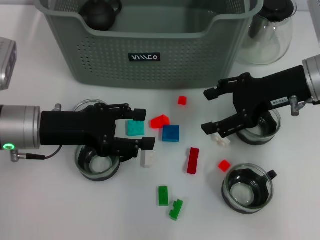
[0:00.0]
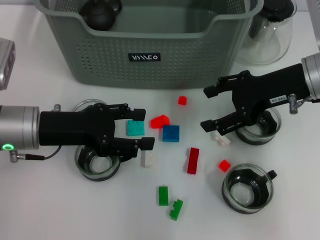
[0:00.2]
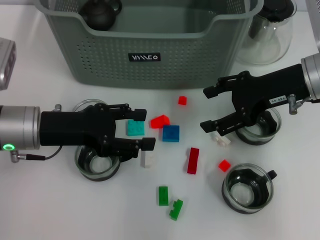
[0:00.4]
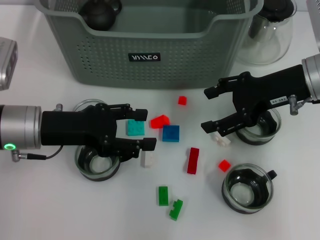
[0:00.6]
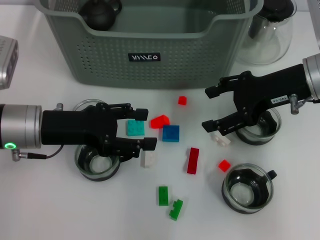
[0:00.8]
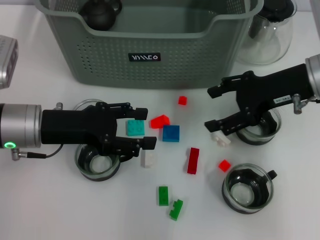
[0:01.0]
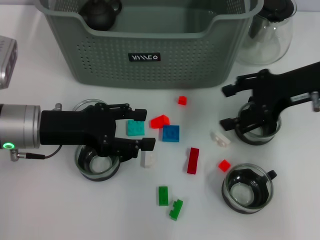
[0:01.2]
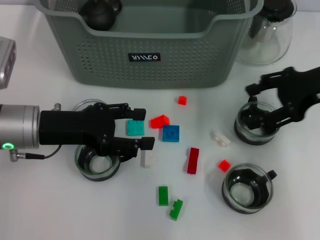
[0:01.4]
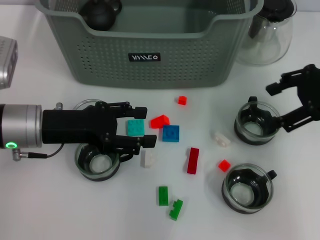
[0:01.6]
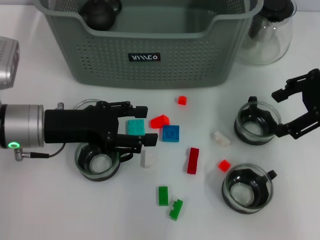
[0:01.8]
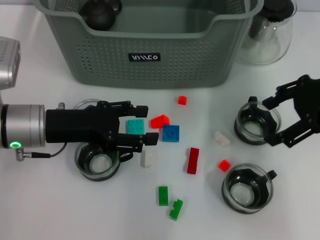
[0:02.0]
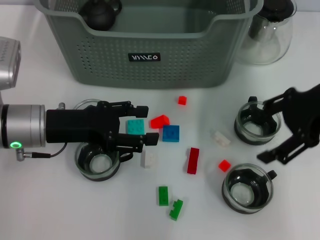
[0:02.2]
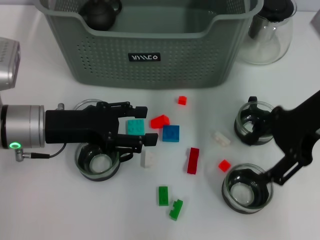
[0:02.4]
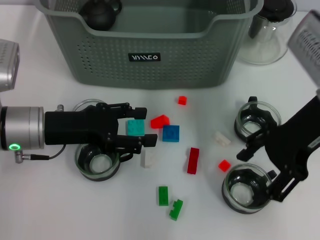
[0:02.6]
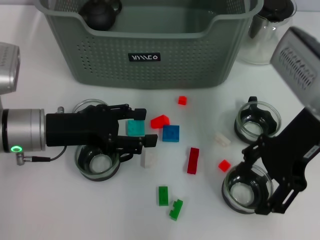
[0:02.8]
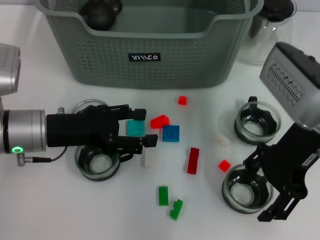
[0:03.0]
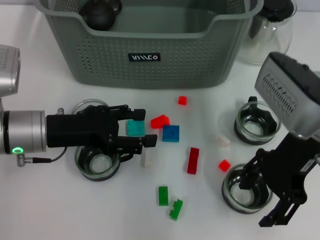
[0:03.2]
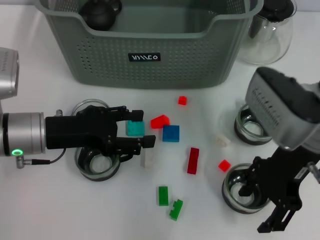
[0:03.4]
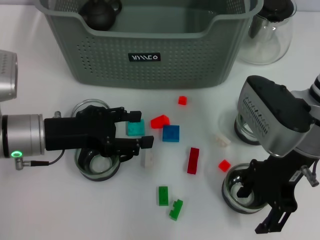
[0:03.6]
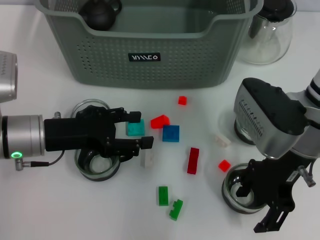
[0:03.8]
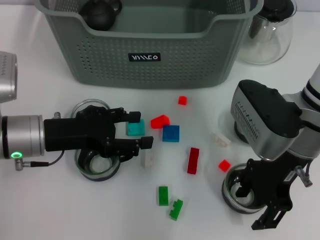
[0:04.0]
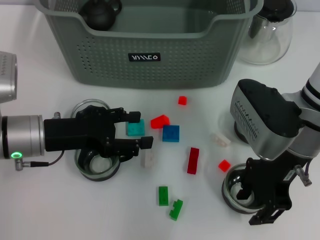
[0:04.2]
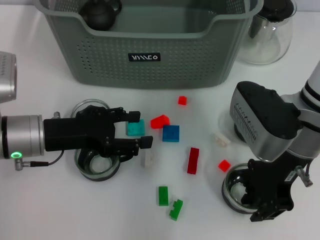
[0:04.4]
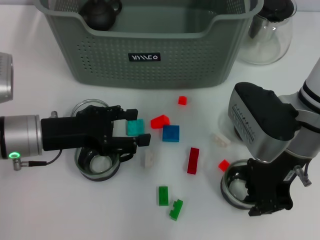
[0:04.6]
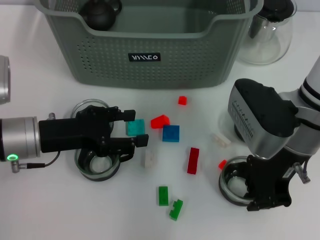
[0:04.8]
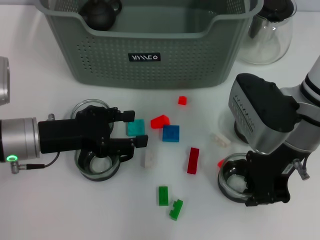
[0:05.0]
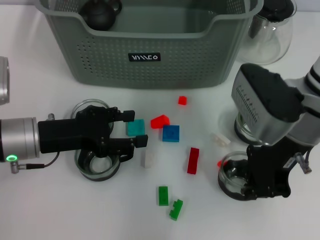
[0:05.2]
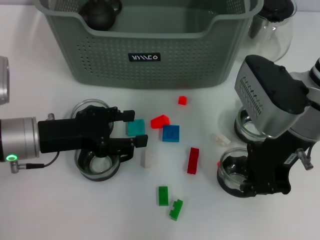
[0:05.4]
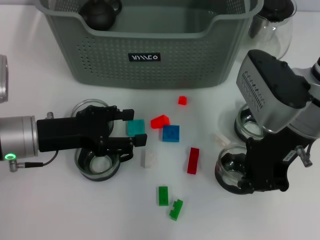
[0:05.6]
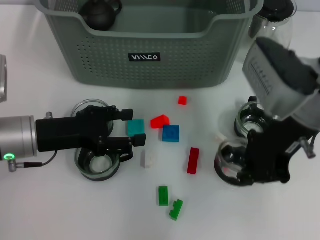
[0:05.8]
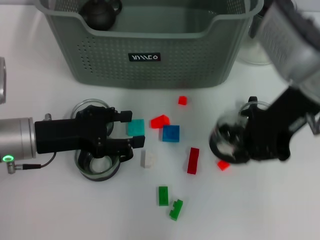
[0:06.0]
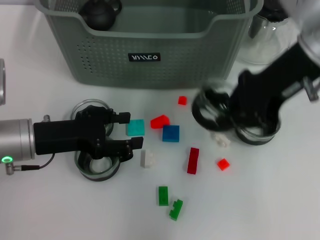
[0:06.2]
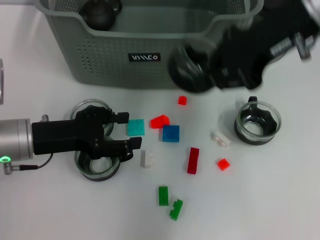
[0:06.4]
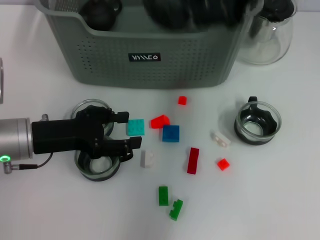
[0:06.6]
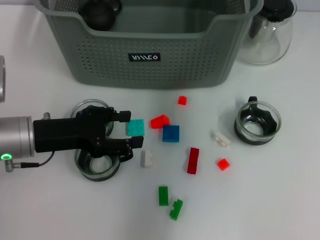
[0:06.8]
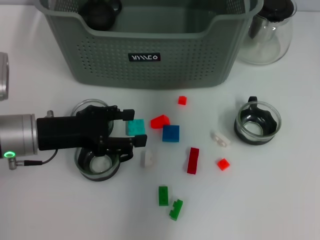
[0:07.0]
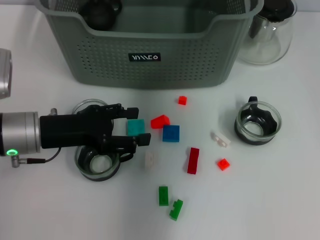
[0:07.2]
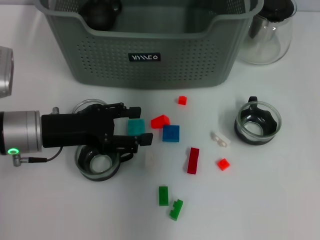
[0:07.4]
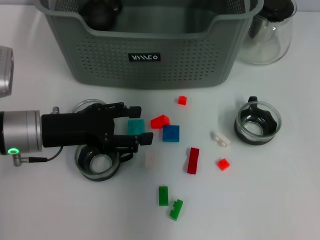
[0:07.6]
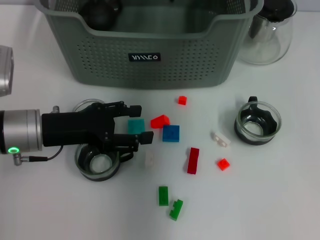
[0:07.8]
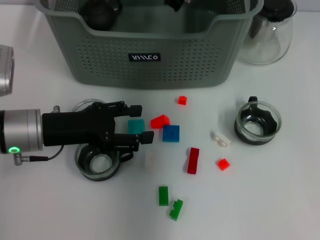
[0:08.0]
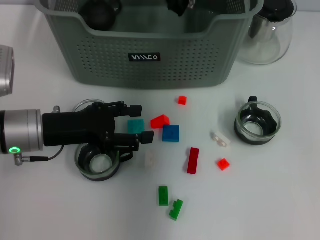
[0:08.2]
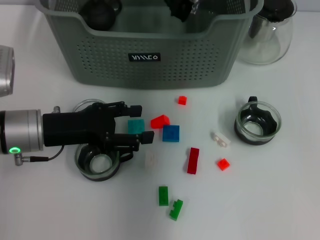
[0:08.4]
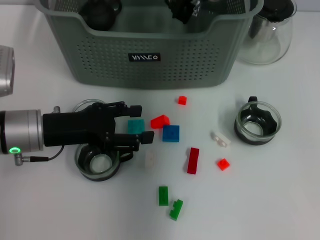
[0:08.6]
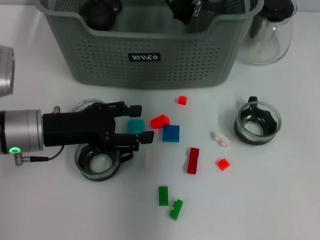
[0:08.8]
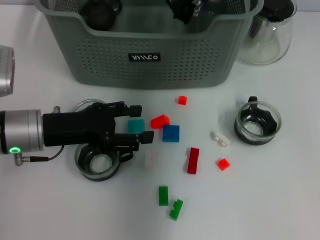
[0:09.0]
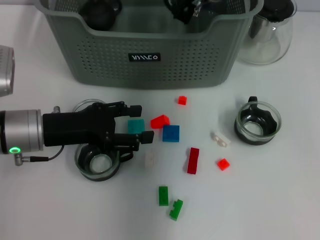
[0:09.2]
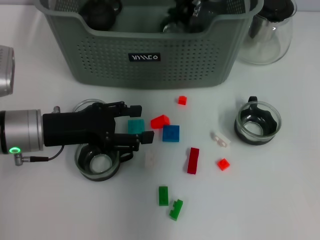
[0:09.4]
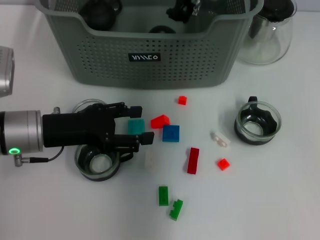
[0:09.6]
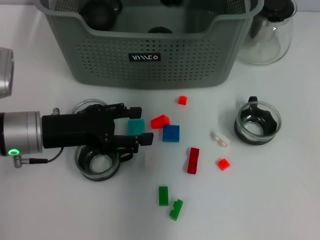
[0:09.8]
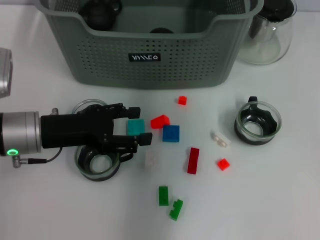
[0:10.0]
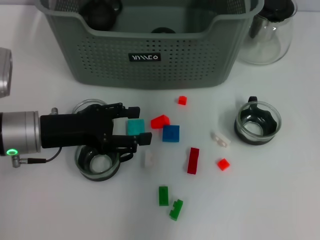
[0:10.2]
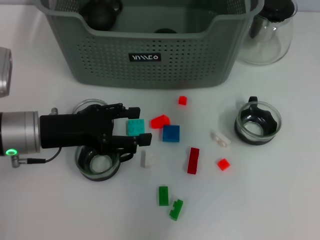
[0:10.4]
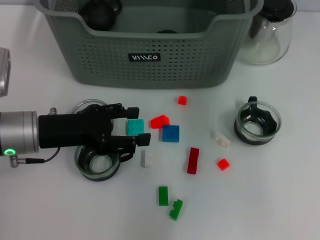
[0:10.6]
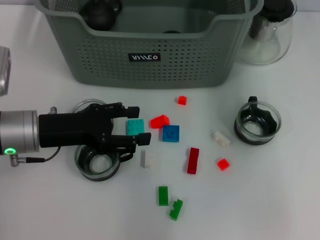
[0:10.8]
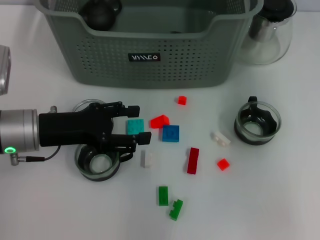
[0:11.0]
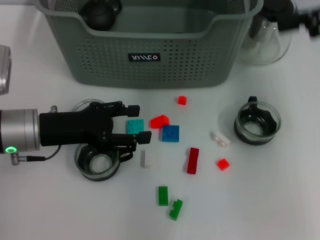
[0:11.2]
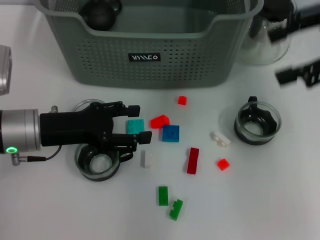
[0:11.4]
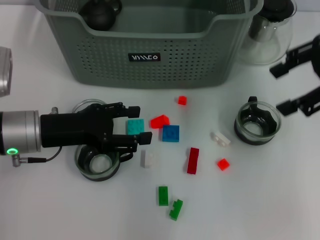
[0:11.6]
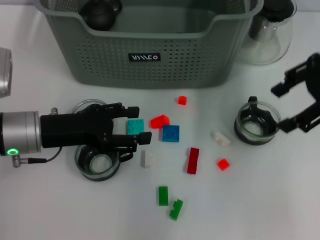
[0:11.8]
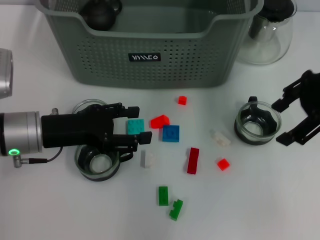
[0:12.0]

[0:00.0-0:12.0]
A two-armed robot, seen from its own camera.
Task of the whole recording: pick up the teacup on the table and place it into the storage bin, pick up the block on the table and place it into the storage bin.
Step, 0:00.0 to 0:04.6: Grasp the cup with right gripper.
Step, 0:05.0 to 0:09.6: Place the cup in the storage box with right gripper.
0:00.0 to 0:01.6: The right gripper moves to the right, approximately 5 cm.
0:01.6 to 0:03.0: The right gripper moves to the left, some 10 cm.
0:03.0 to 0:04.4: The grippers move only a little.
0:04.4 to 0:06.0: The right gripper goes roughly 5 cm upward, and closes its fingers.
0:06.0 to 0:07.6: The right gripper is displaced forward and to the left by approximately 20 cm.
0:07.6 to 0:09.0: The right gripper goes approximately 5 cm downward.
0:09.0 to 0:10.4: The right gripper heads upward, covering some 15 cm, and opens.
0:10.4 to 0:12.0: The right gripper shifts approximately 20 cm to the right, downward and backward.

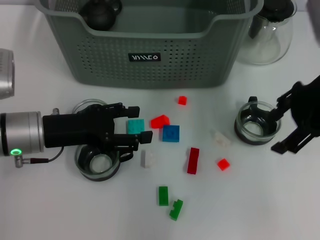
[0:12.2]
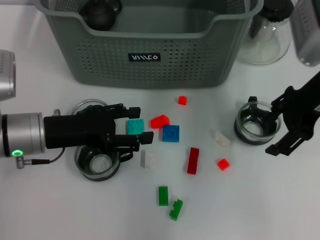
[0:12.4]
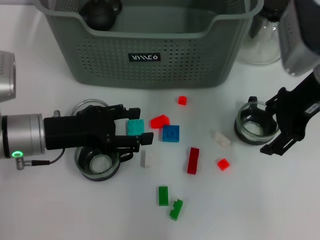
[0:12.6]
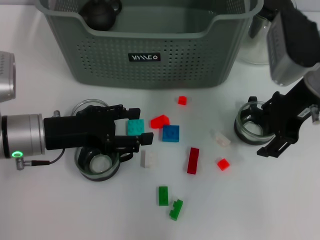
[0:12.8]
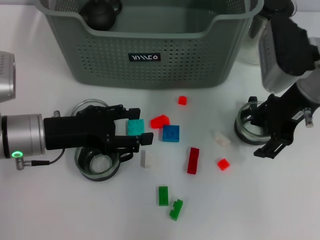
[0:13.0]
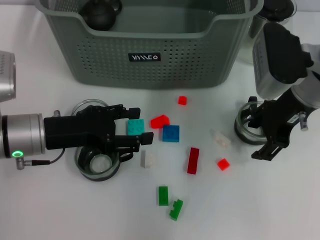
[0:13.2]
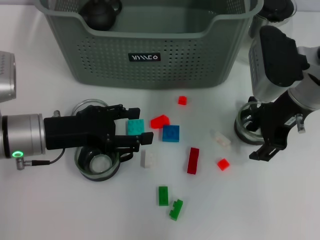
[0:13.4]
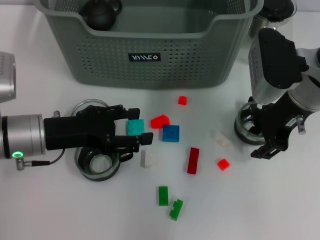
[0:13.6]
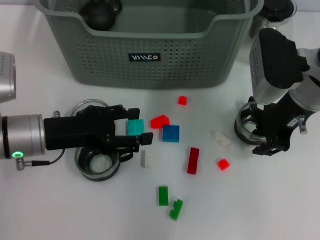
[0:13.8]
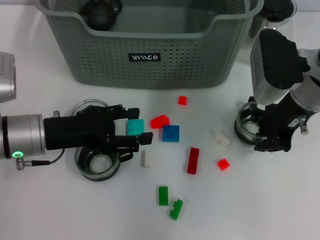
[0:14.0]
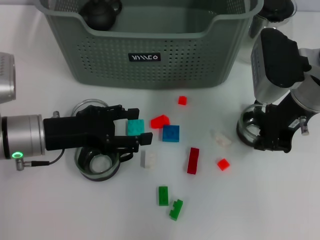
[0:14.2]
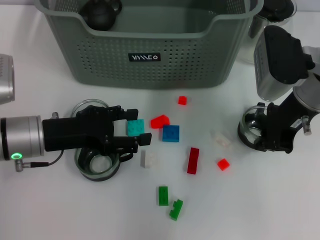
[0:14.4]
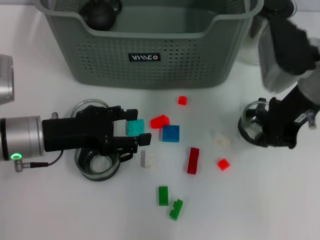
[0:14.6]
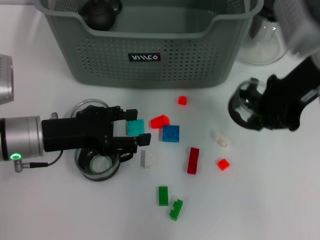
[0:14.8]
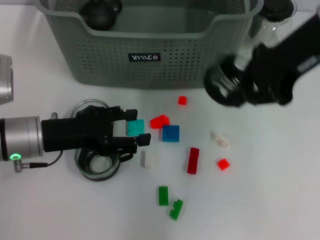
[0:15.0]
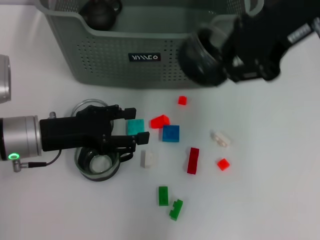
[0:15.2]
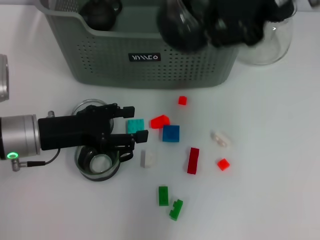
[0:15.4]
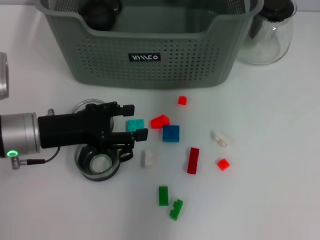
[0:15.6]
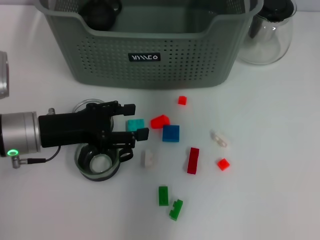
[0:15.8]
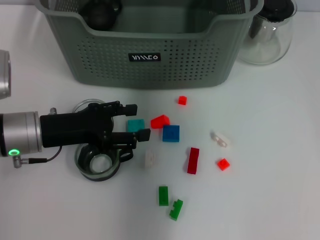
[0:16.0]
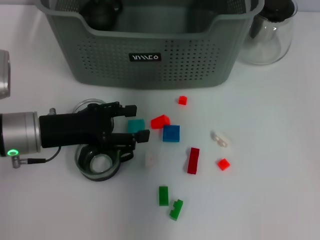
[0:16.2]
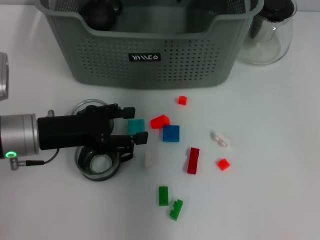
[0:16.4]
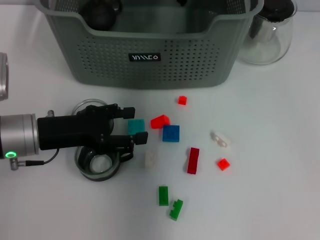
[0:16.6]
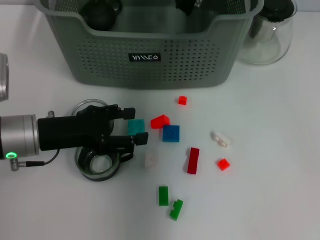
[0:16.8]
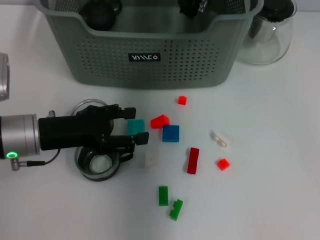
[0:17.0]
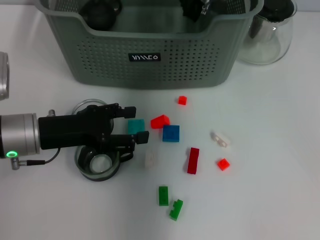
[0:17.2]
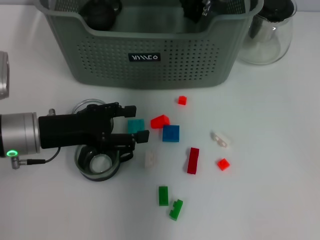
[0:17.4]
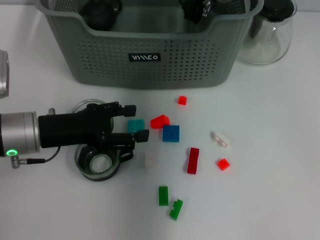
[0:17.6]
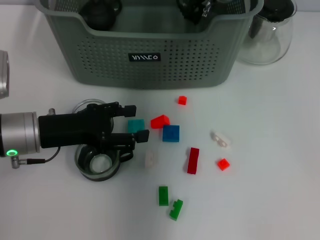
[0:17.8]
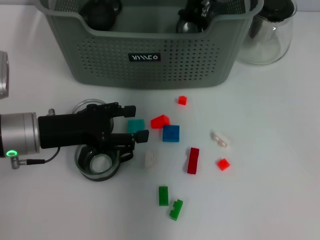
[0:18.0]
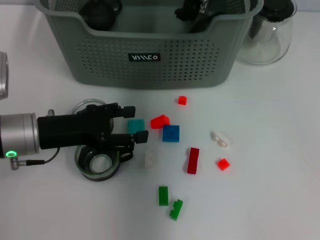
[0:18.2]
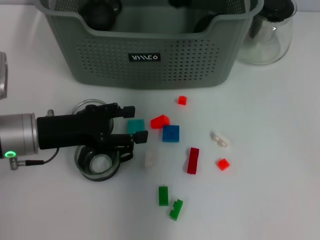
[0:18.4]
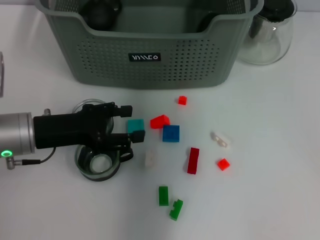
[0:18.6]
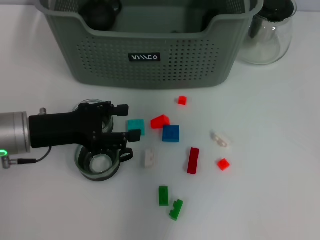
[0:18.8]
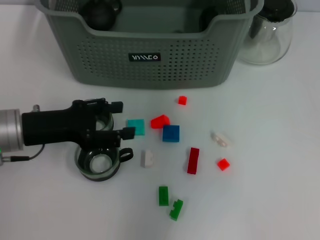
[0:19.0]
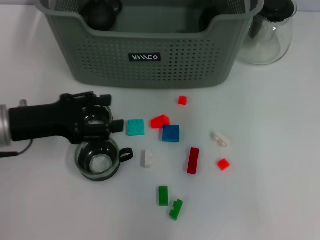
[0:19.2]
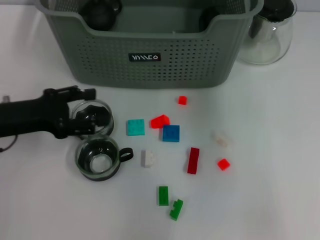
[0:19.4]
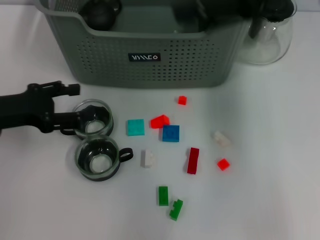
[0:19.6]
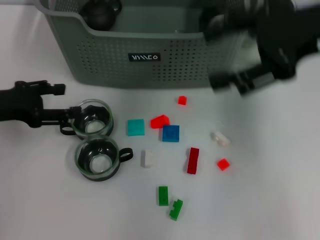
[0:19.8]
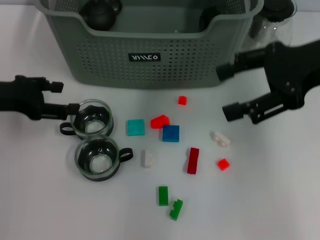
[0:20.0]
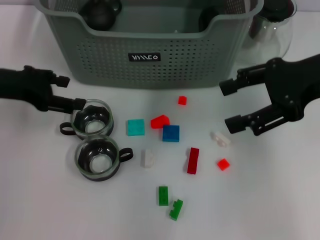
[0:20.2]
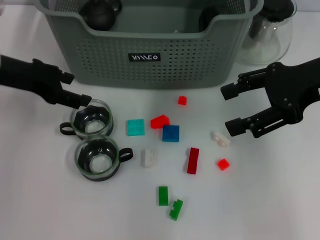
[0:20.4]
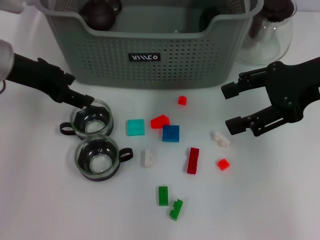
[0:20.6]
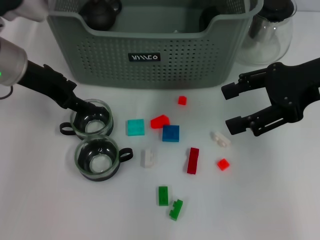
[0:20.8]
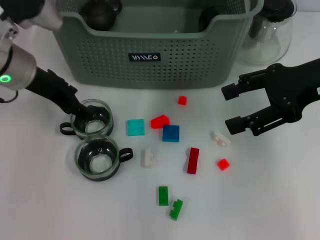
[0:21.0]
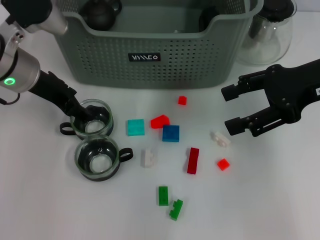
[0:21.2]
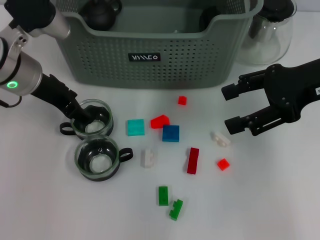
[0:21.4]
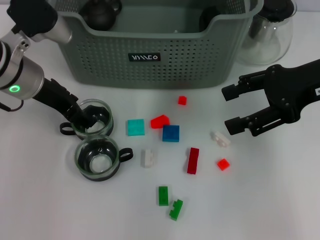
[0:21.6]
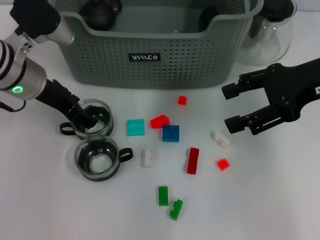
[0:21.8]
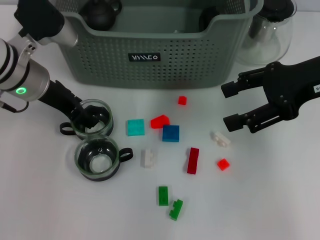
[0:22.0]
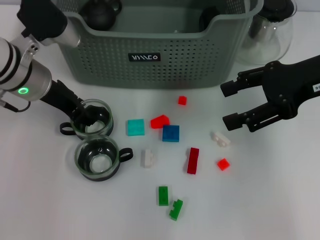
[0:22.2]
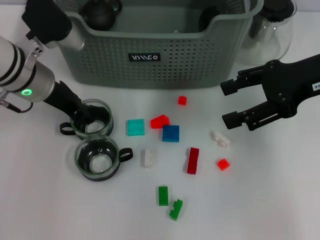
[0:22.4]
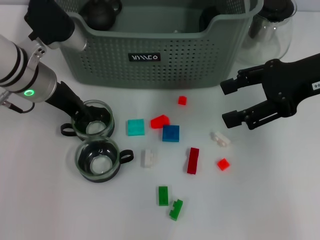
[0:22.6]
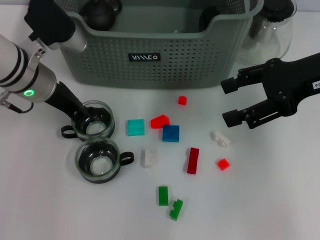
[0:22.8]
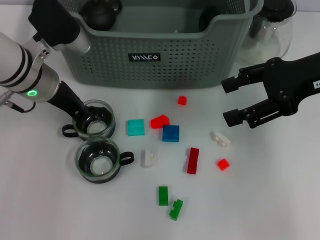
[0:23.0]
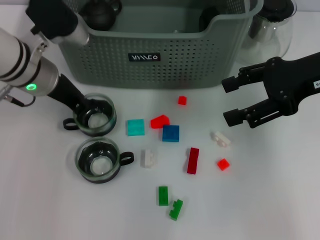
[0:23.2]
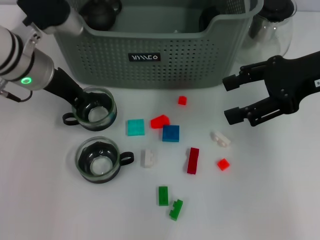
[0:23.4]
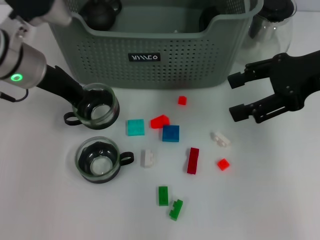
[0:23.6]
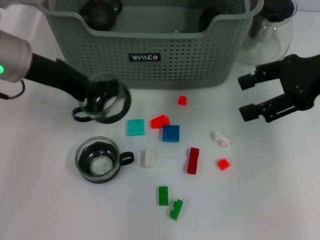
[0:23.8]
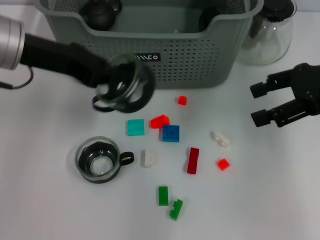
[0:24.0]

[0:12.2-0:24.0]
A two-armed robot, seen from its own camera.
Task of the whole recording: pick up the teacup on the table and place it into the storage bin, pick up the block on the table and place it into the storage bin.
Step, 0:12.2 to 0:14.2: Grasp the cup with right gripper.
Step, 0:14.4 to 0:18.0: Place the cup in the storage box with right gripper.
Step, 0:18.2 to 0:23.0: Grasp the cup with left gripper.
0:12.2 to 0:13.6: The right gripper heads downward, covering roughly 5 cm.
0:13.6 to 0:15.2: The right gripper moves upward, some 15 cm, and closes.
0:15.2 to 0:16.6: The right gripper moves forward, to the left and downward, approximately 15 cm.
0:18.2 to 0:19.6: The right gripper goes about 20 cm backward, to the right and upward, and opens its fingers; the left gripper goes some 5 cm to the left.
0:19.6 to 0:21.0: The left gripper heads to the right and forward, covering some 10 cm. The right gripper goes about 10 cm downward.
0:21.0 to 0:22.6: The left gripper closes its fingers.
0:22.6 to 0:24.0: The left gripper heads upward, covering approximately 10 cm, and closes up.
